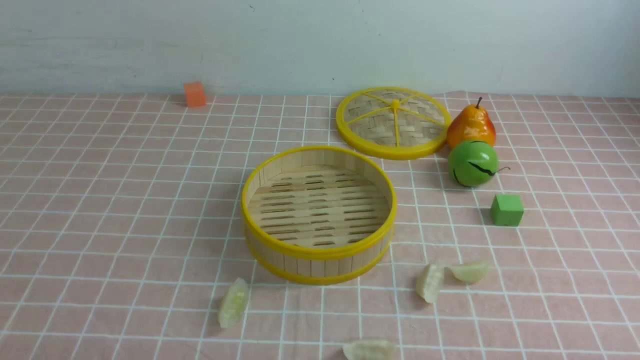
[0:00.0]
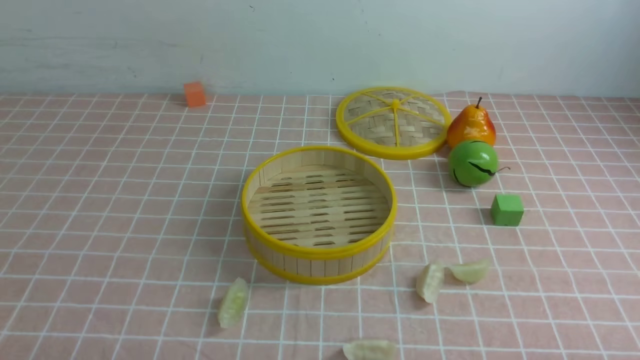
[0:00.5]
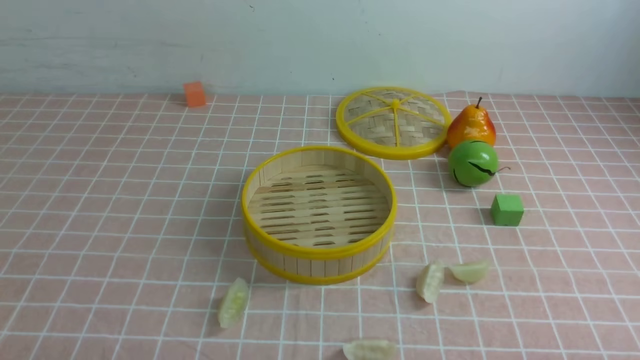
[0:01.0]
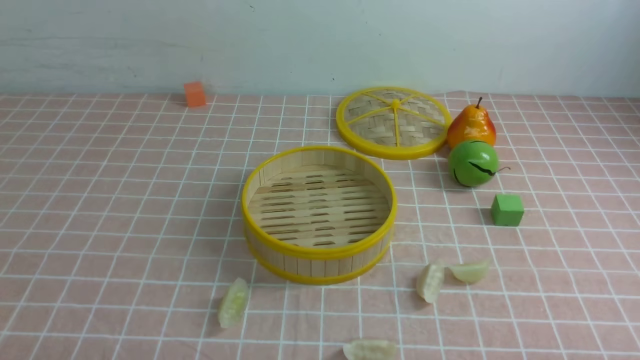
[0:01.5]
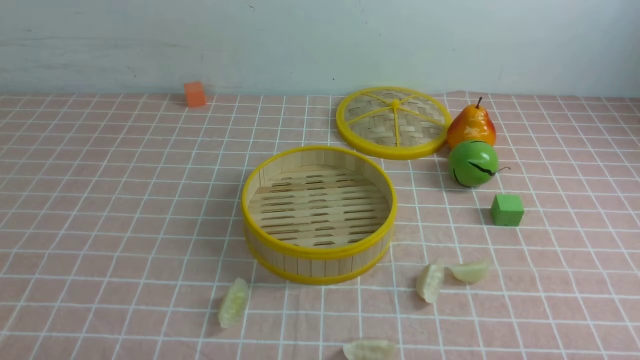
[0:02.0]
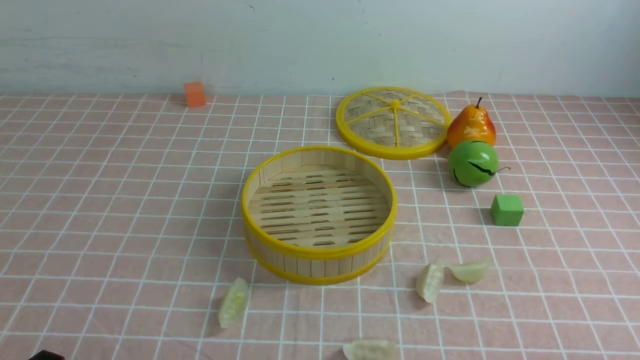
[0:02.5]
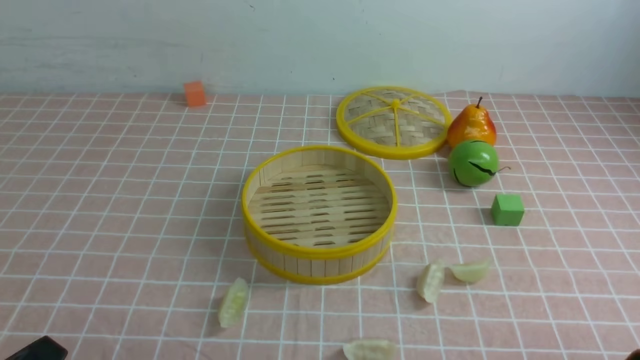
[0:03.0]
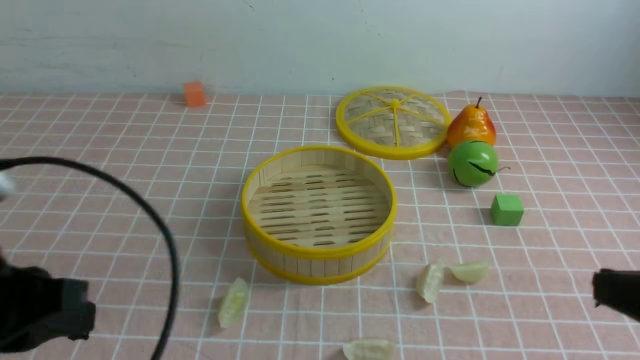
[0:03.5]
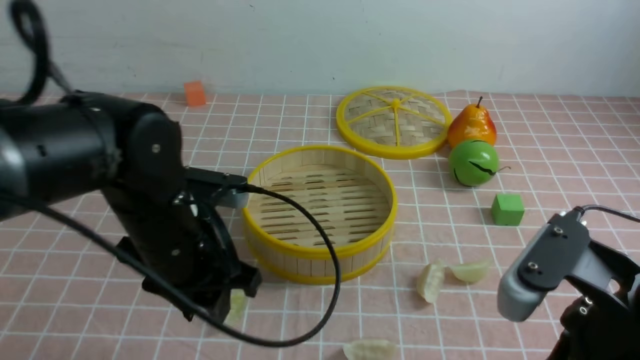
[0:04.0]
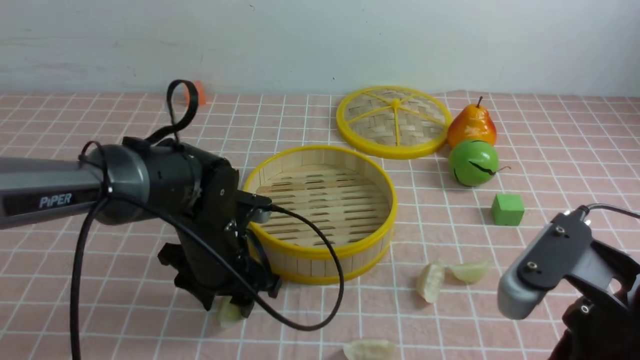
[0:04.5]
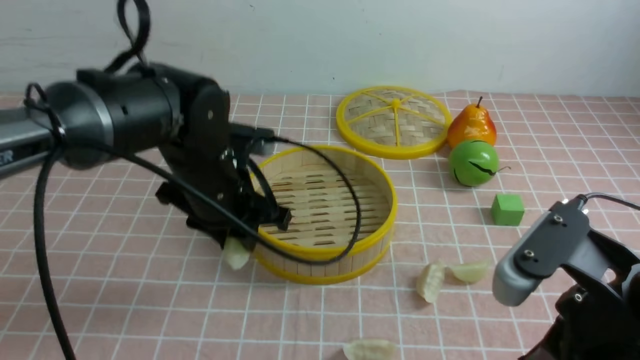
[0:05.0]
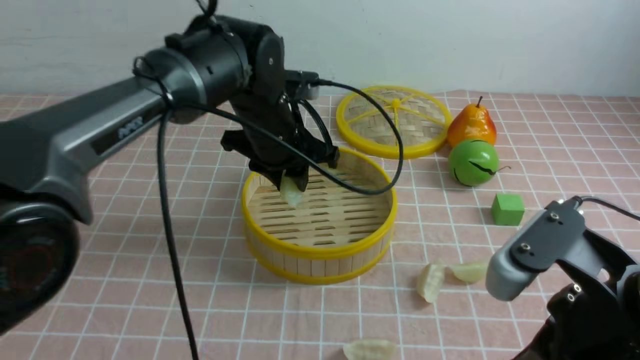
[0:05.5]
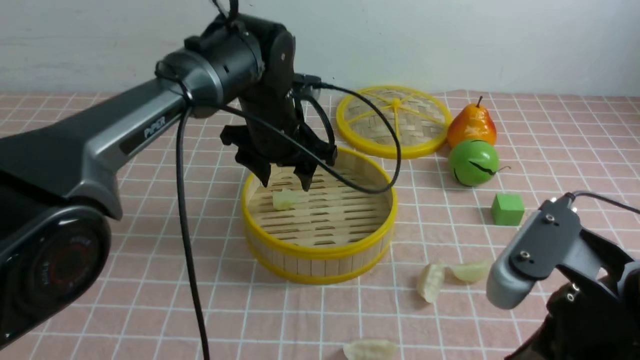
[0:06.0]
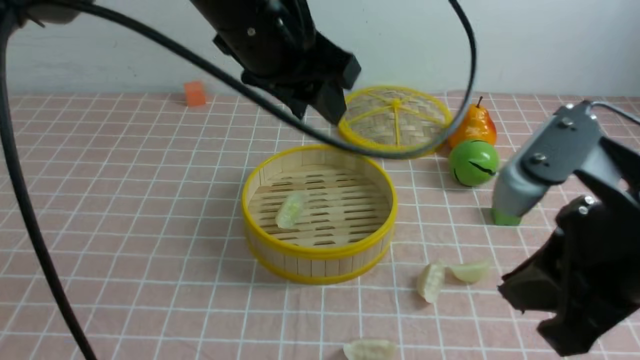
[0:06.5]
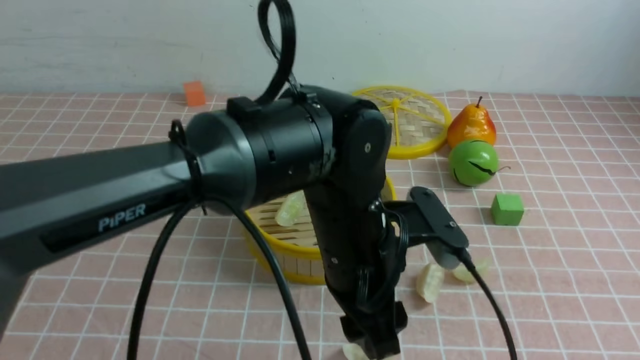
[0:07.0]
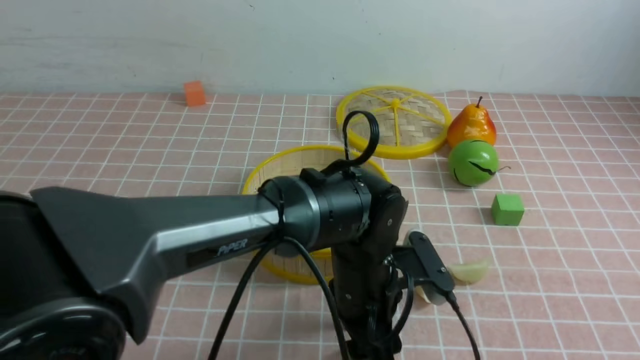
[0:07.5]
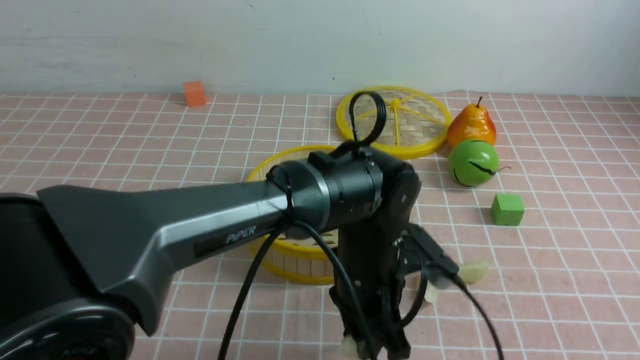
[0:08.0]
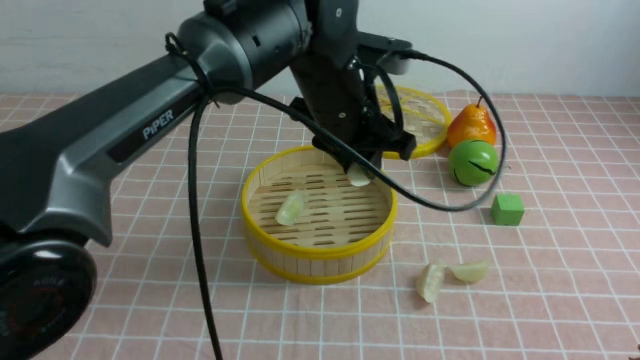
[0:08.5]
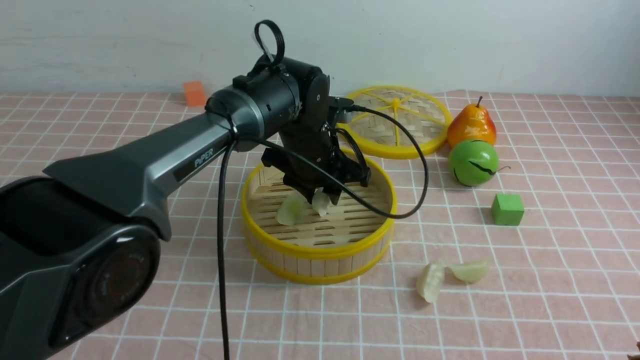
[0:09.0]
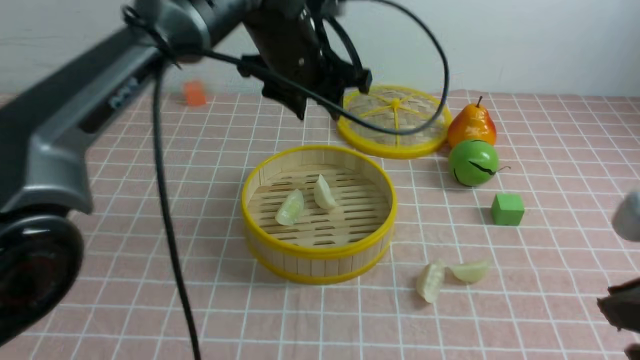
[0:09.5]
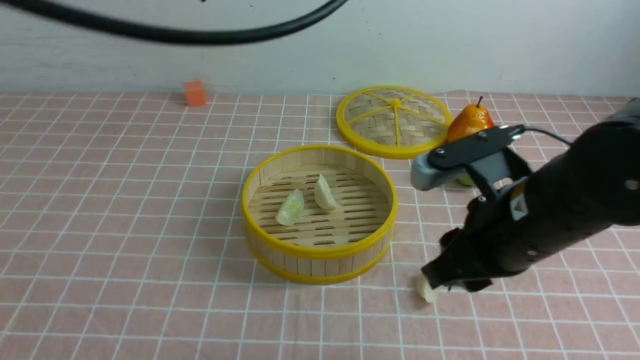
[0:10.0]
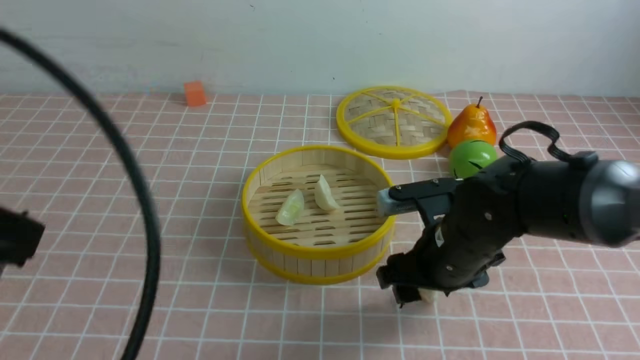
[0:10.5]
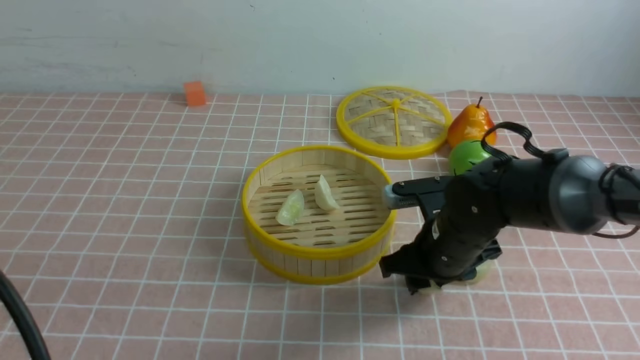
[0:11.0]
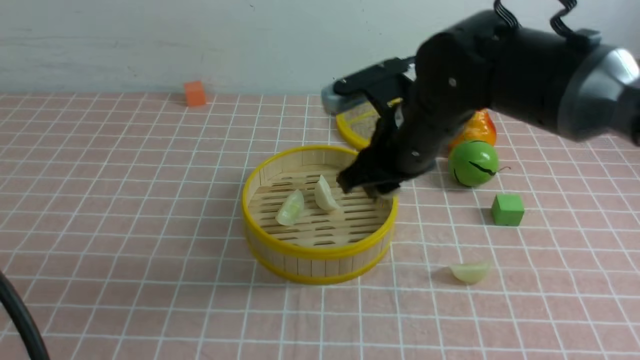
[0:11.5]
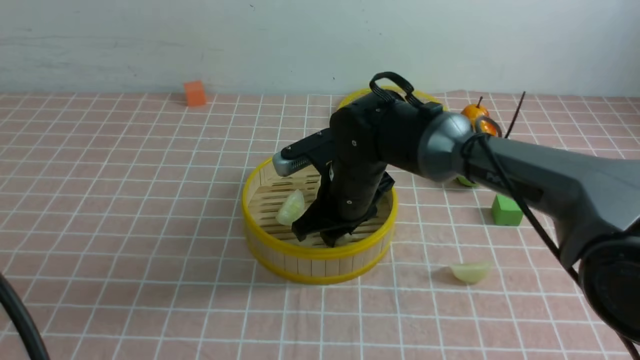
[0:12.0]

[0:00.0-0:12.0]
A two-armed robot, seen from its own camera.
Task of the whole recording: put the dumplings into the steamer on the table with the pink tablecloth.
Step, 0:00.0 to 0:04.5: use the left arm to grab a dumpling.
Step, 0:05.0 to 0:06.0: use the left arm to put the dumpling into the steamer.
Step, 0:06.5 to 0:07.5: use the left arm to grab a dumpling.
Step, 0:08.5 to 0:09.0: use the left arm to put the dumpling into the steamer.
Step, 0:09.5 to 0:11.0: use the right arm to grab a dumpling.
0:02.0 to 0:04.0: The left gripper heads forward and to the right, covering about 25 cm, and closes, then opens again; the right gripper is displaced upward, to the left and forward by some 20 cm, and closes its fingers.
0:04.0 to 0:06.0: The left gripper heads forward and to the right, covering about 15 cm.
0:06.0 to 0:08.0: The right gripper travels backward and to the right by some 10 cm. Meanwhile the left gripper moves up and down over approximately 20 cm, changing direction 2 times, and closes up.
0:08.0 to 0:10.0: The left gripper goes up and down, about 30 cm each way, reversing 2 times, and closes, while the right gripper goes approximately 20 cm forward and to the left, and opens.
0:10.0 to 0:12.0: The right gripper heads forward, to the left and downward, covering approximately 20 cm, and opens, then closes again. Meanwhile the left gripper shifts some 20 cm backward, downward and to the left.

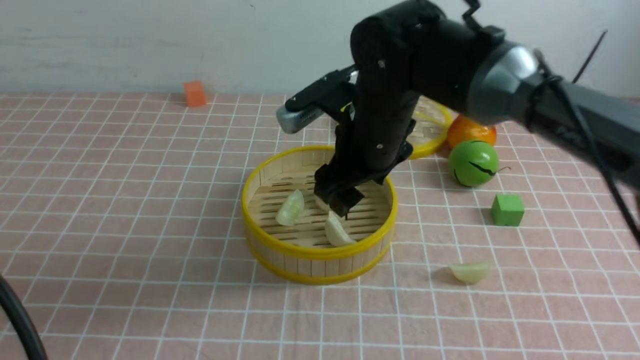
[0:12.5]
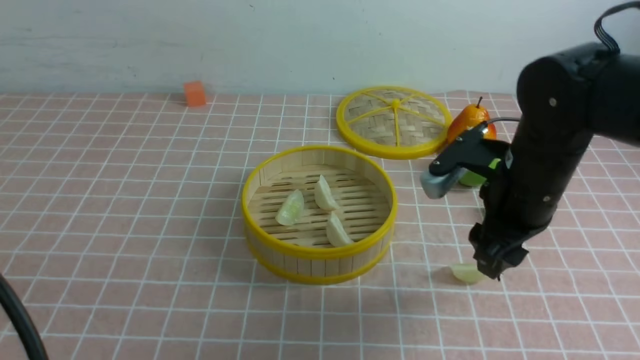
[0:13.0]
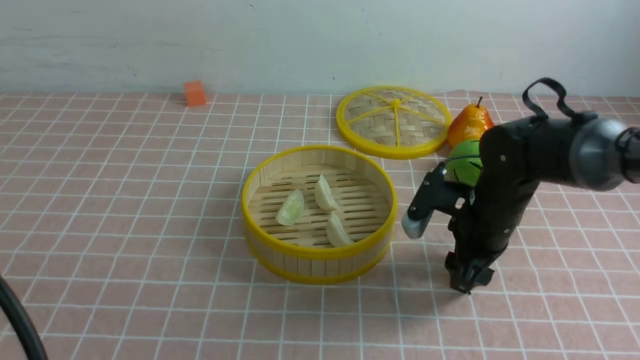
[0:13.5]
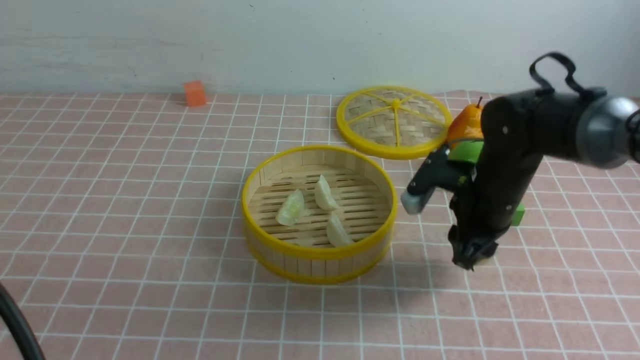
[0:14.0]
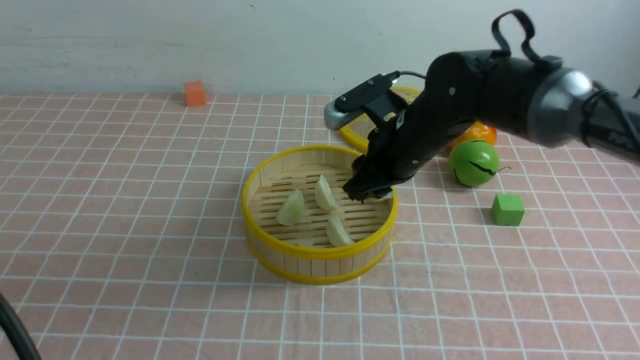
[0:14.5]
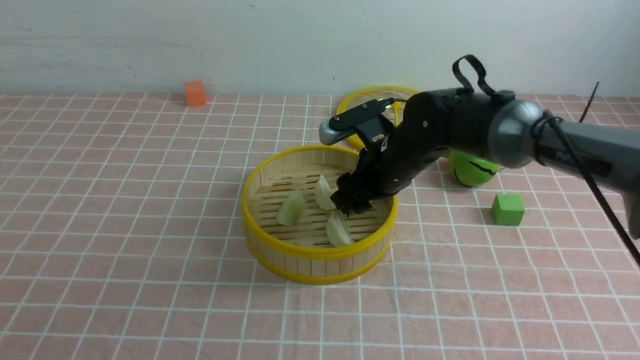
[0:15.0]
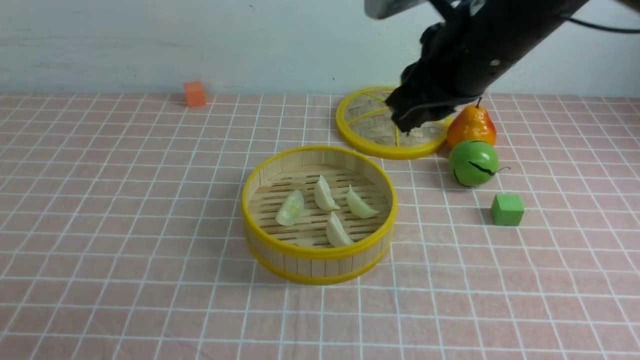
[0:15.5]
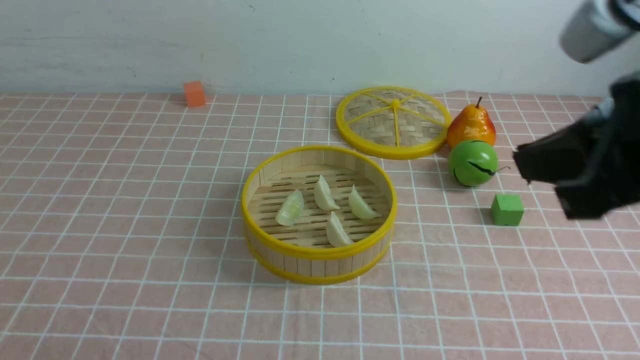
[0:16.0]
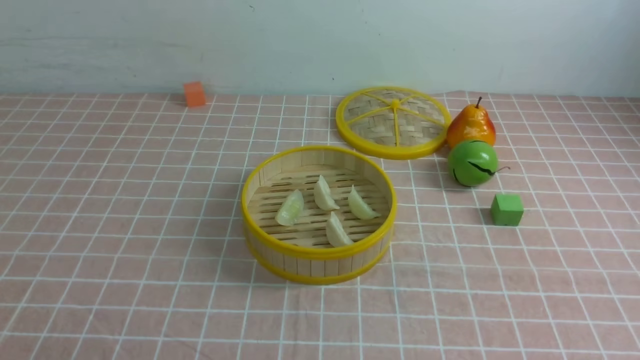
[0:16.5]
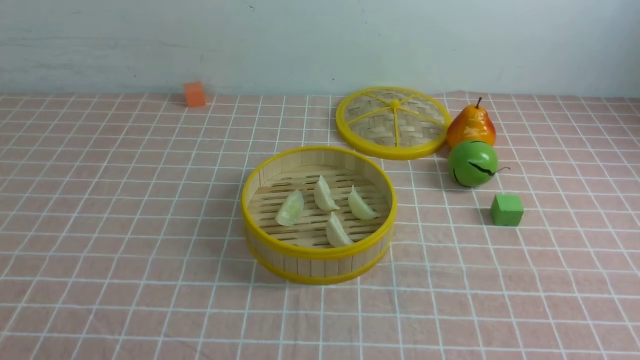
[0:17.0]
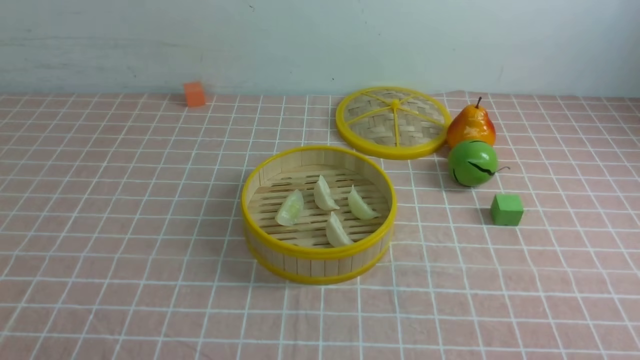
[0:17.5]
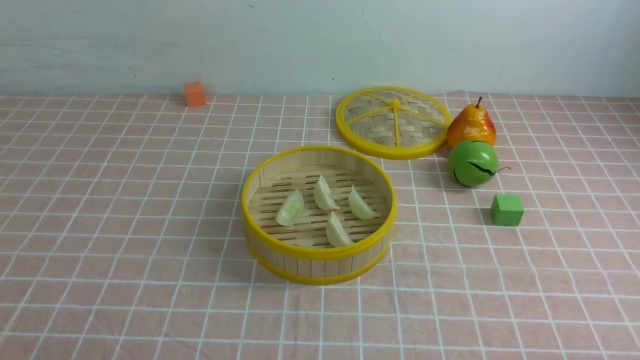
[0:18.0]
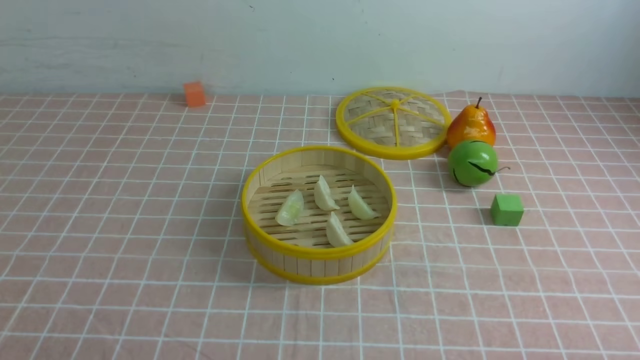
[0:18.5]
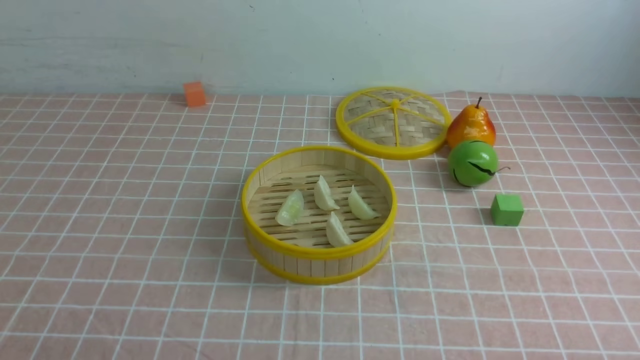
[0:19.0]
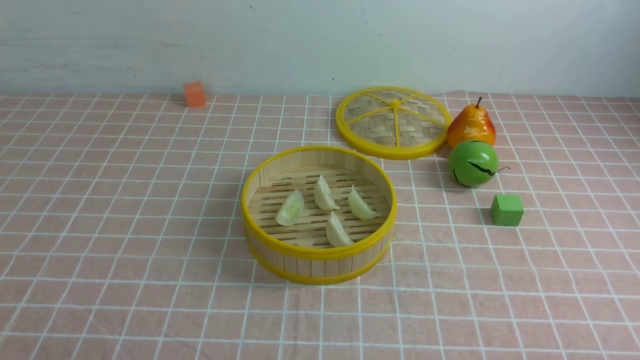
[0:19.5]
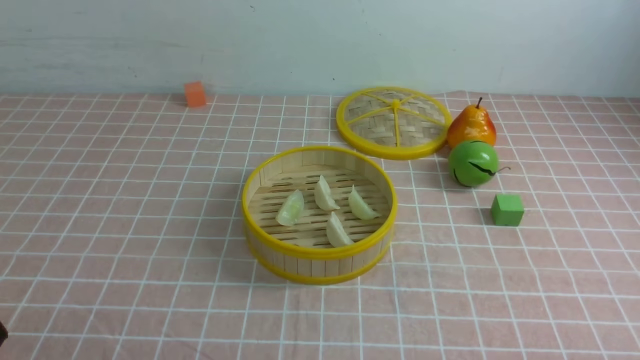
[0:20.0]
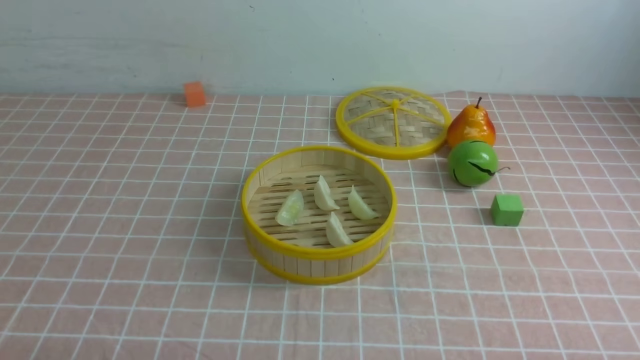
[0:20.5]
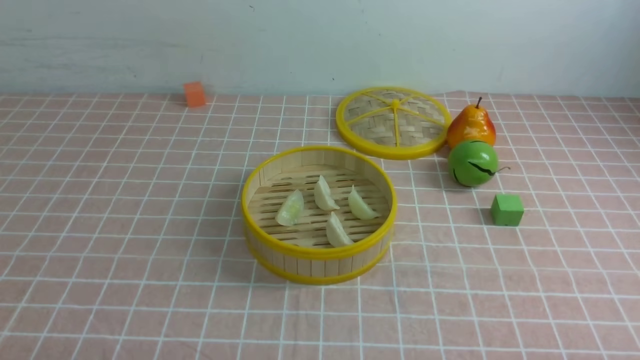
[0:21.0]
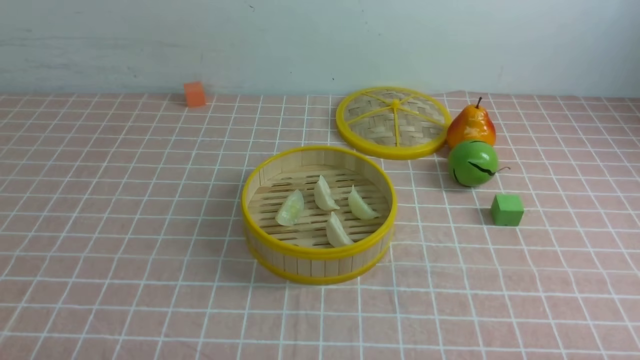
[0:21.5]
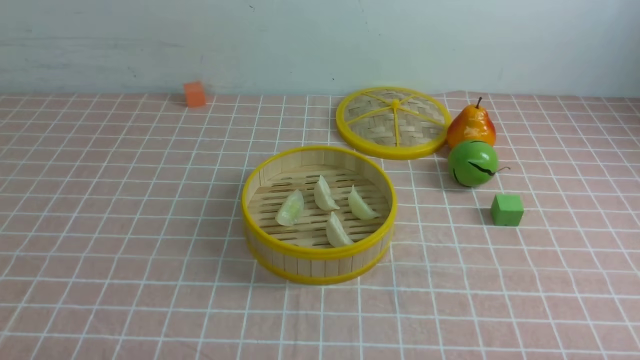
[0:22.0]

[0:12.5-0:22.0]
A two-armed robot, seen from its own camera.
Task of the whole recording: put the dumplings into the steamer on the table with the pink tablecloth.
Step, 0:13.0 to 0:13.5: use the right arm to grab a dumpling.
Step, 0:14.5 to 0:15.0: use the right arm to put the dumpling into the steamer.
0:12.5 to 0:14.5: The right gripper heads downward, covering some 5 cm, travels to the right and back again, some 10 cm each way, and closes.
0:14.5 to 0:16.5: The left gripper heads downward, covering about 10 cm; the right gripper moves backward, to the right and upward, some 40 cm, and closes up.
